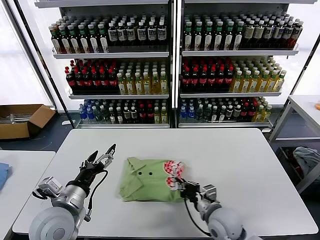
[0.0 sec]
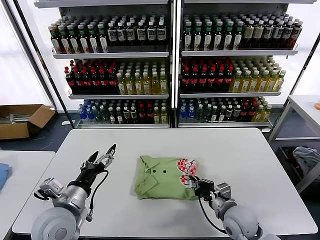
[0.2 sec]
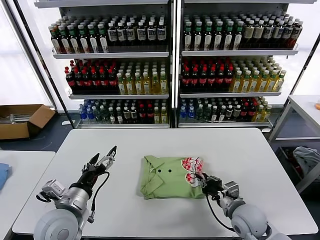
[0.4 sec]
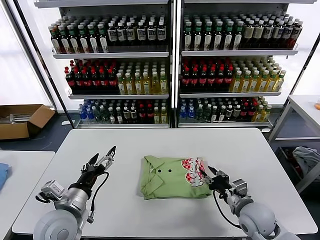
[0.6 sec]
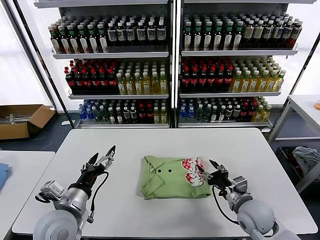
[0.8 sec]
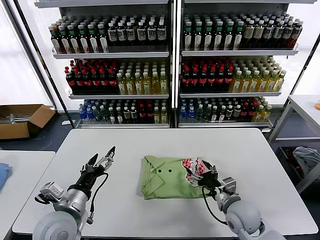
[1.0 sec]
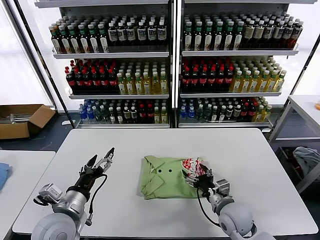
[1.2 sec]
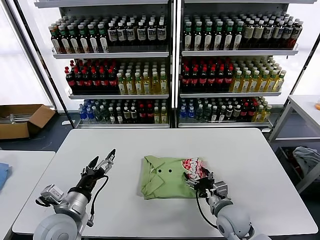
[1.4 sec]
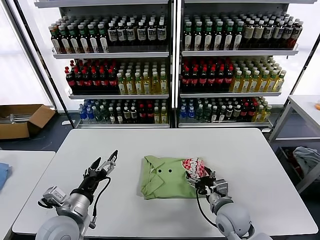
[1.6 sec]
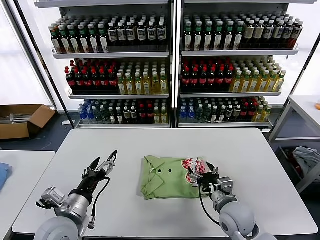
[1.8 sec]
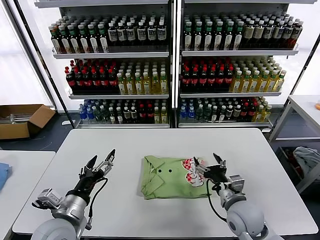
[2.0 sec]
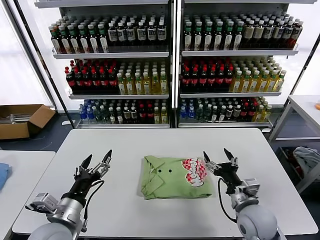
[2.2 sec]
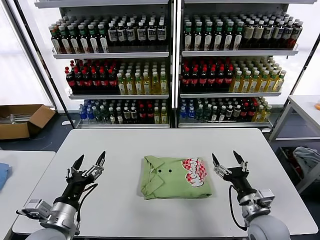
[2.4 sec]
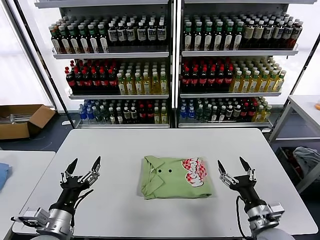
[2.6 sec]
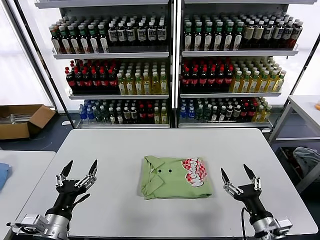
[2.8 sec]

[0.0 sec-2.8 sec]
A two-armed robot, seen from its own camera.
Task of the whole recording: fold and organize the clothes.
Step, 0.0 sec to 1.6 sec: Drag the clothes to the center of the table.
0.0 sec to 1.4 sec: The right gripper opens up.
1.4 sec to 2.8 sec: The right gripper goes about 15 cm backward and to the right. Meanwhile the left gripper is displaced backward by about 5 cm.
